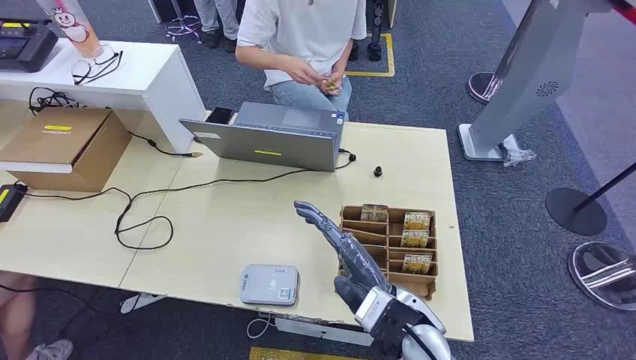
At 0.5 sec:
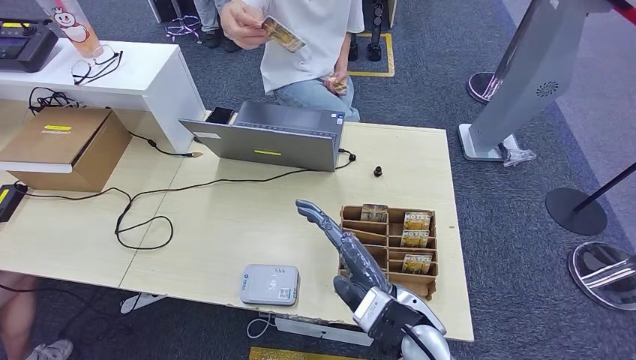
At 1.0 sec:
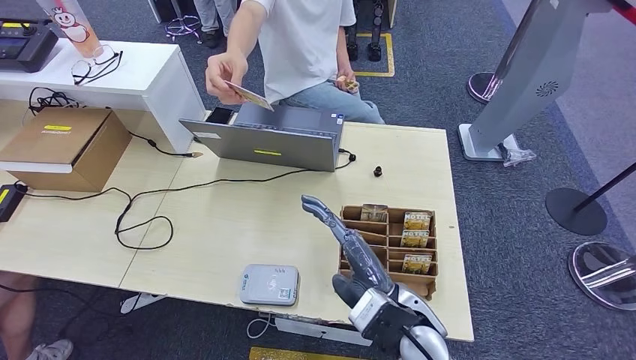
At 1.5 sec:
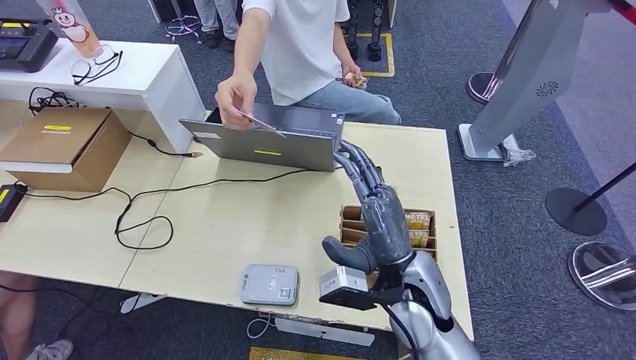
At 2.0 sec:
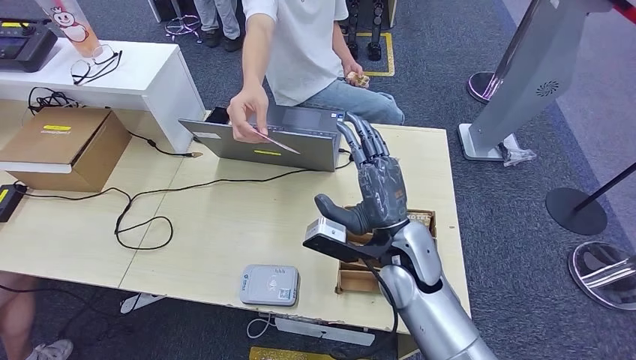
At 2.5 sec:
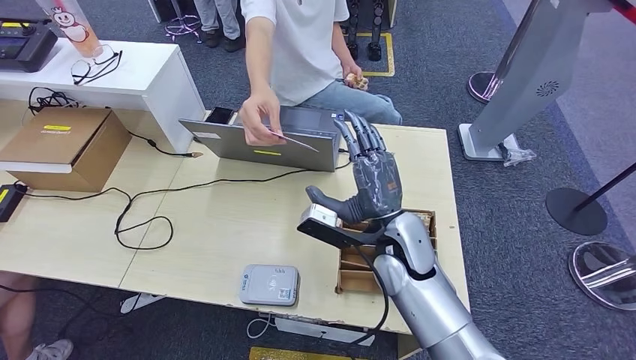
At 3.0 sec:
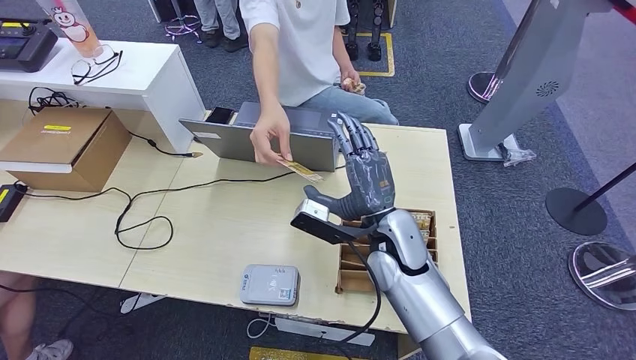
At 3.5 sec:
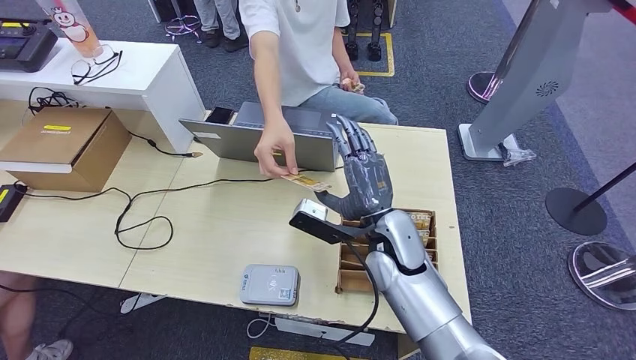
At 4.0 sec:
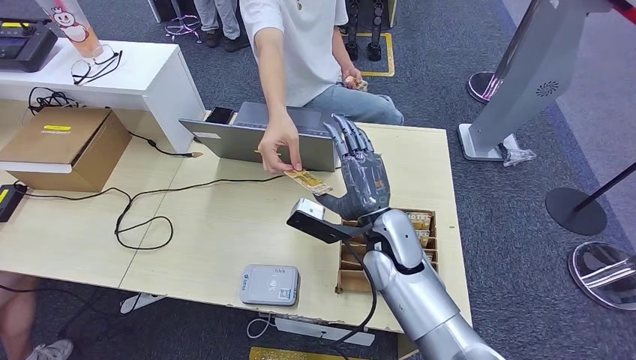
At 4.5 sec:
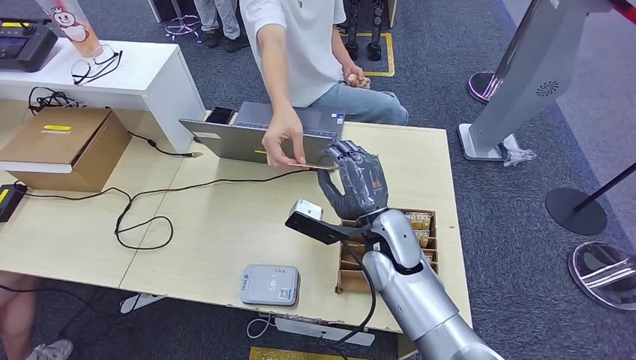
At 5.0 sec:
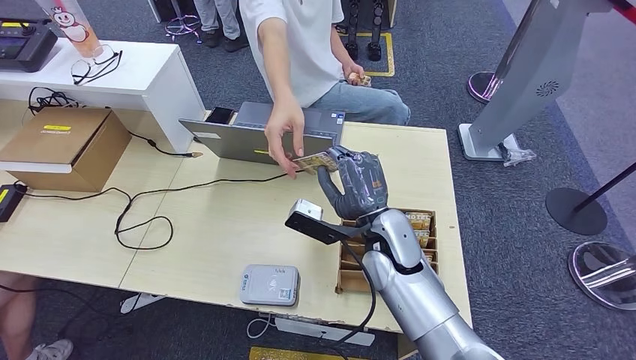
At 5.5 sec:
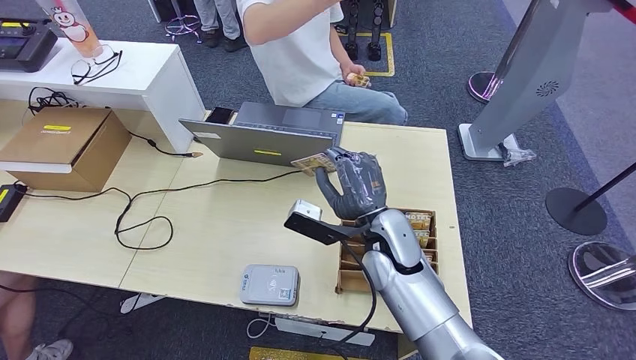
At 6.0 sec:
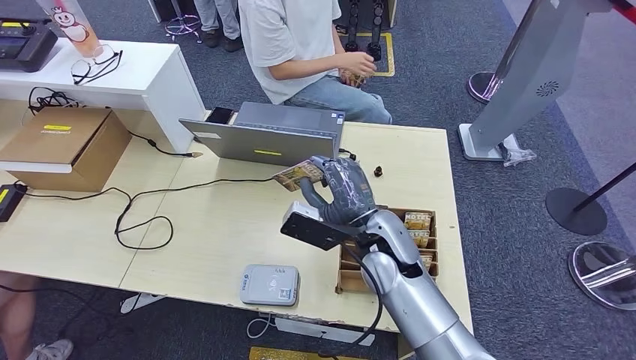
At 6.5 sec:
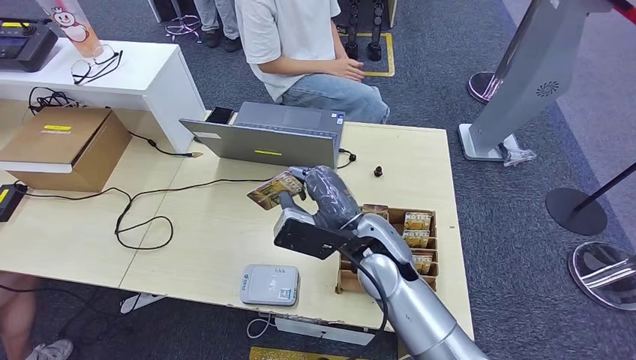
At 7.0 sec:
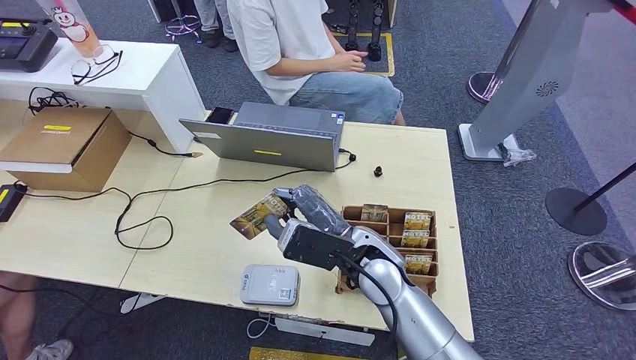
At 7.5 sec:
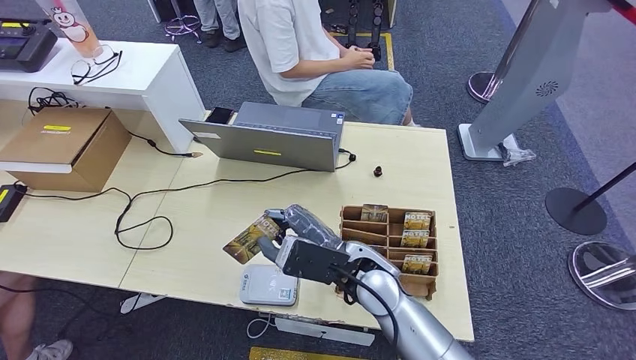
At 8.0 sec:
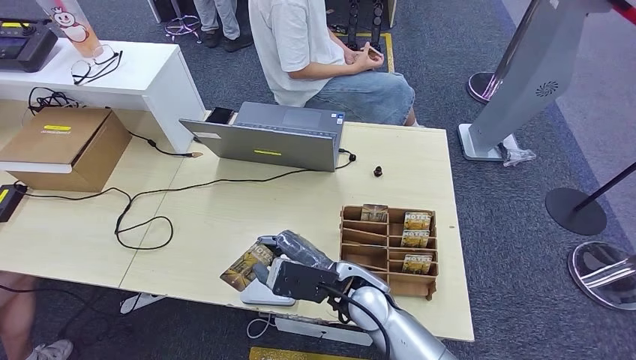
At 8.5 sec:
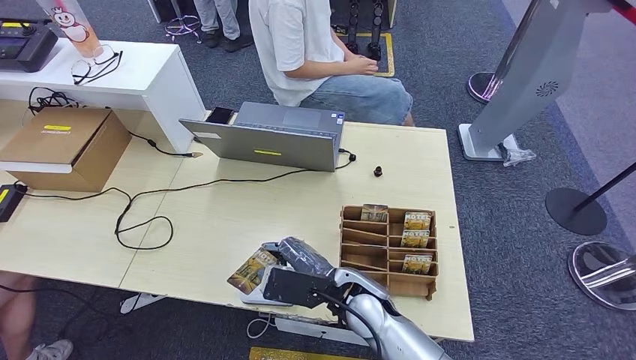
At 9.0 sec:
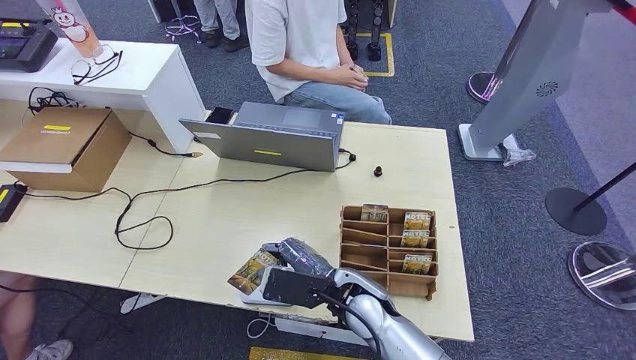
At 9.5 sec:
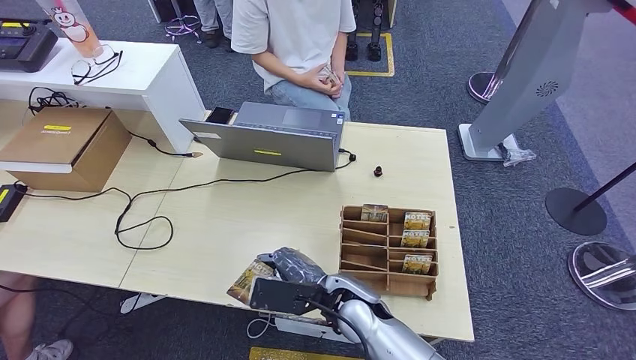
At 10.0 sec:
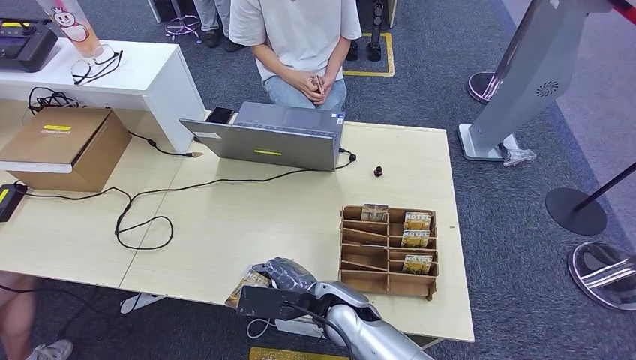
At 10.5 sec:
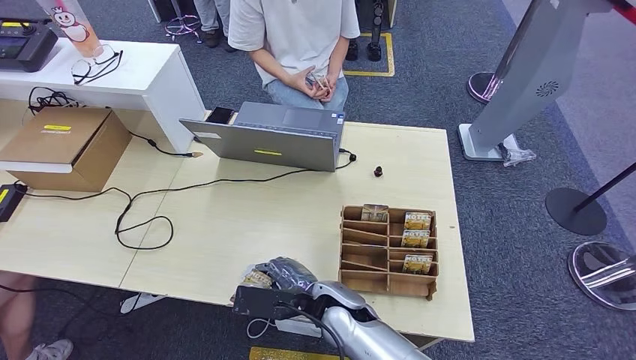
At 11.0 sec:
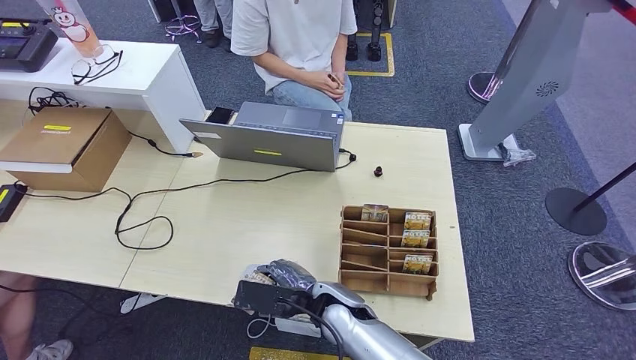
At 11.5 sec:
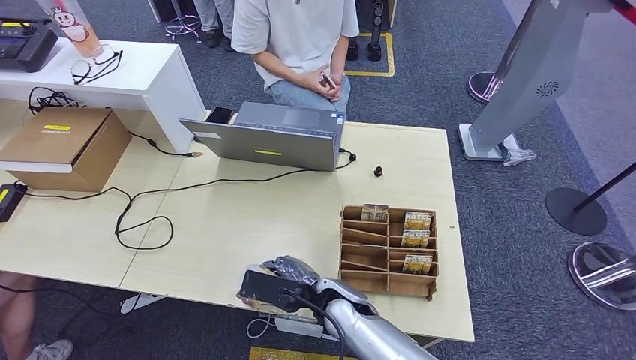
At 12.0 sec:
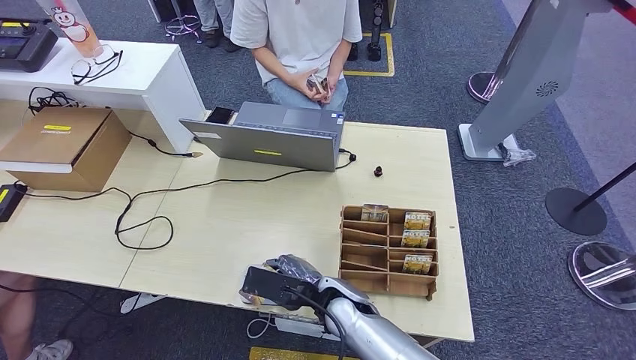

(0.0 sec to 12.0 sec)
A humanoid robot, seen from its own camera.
Step, 0.0 sec - 5.5 sec: Take the ID card from the person's hand.
2.0 sec - 6.0 sec: There are only small adjustments of the hands.
6.0 sec - 8.0 sec: The right hand is displaced backward and downward by some 5 cm.
8.0 sec - 10.0 sec: The right hand ends up approximately 5 cm from where it was.
10.0 sec - 12.0 sec: The hands move only a little.

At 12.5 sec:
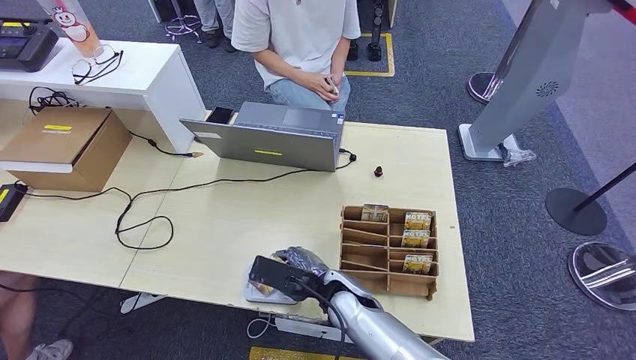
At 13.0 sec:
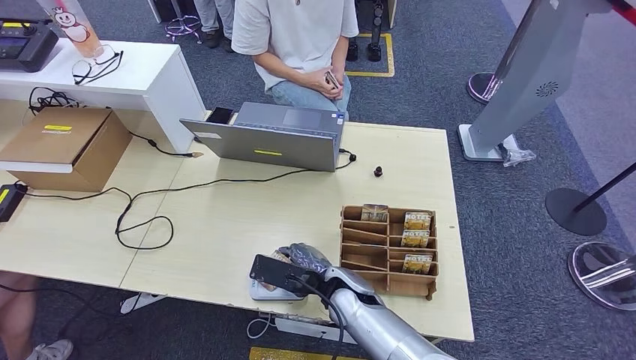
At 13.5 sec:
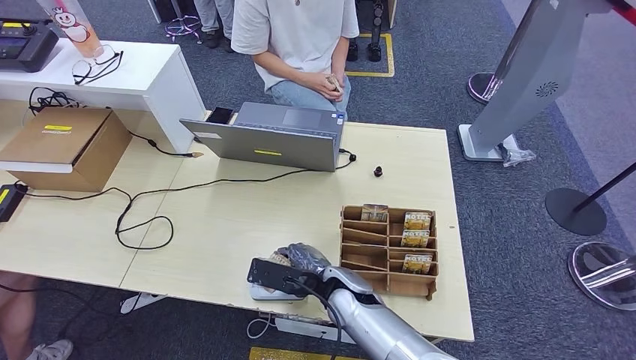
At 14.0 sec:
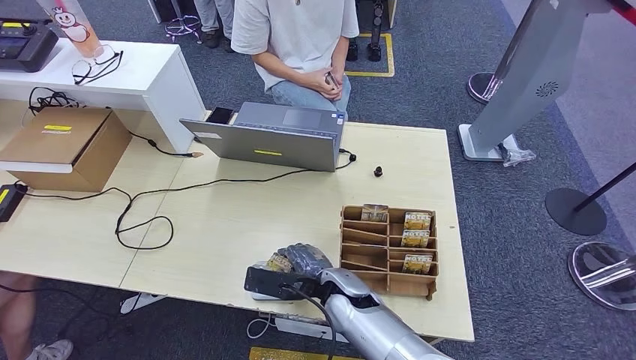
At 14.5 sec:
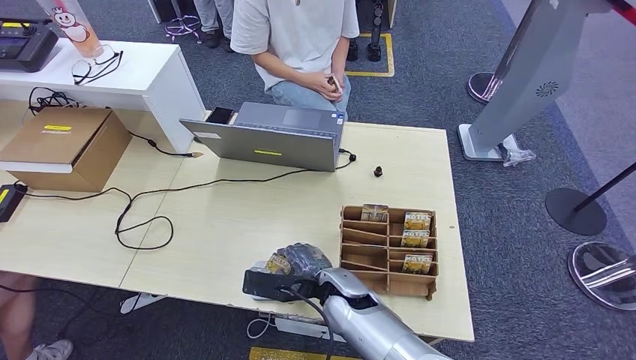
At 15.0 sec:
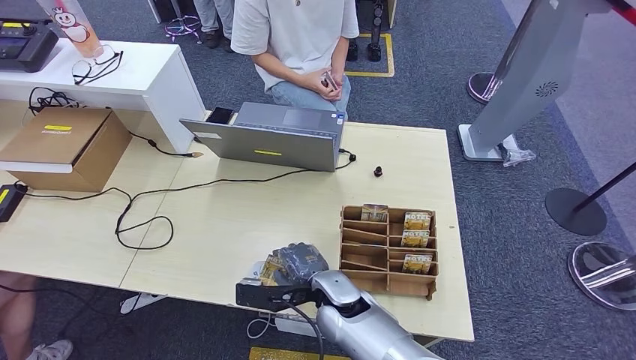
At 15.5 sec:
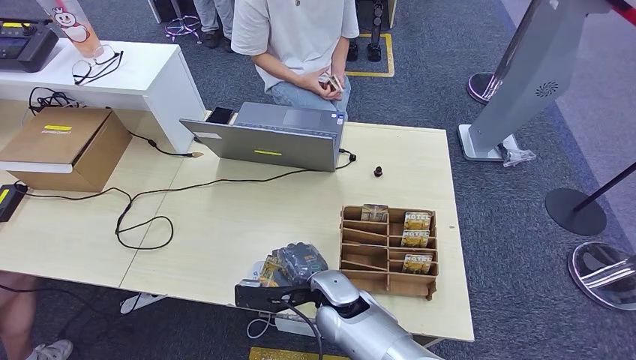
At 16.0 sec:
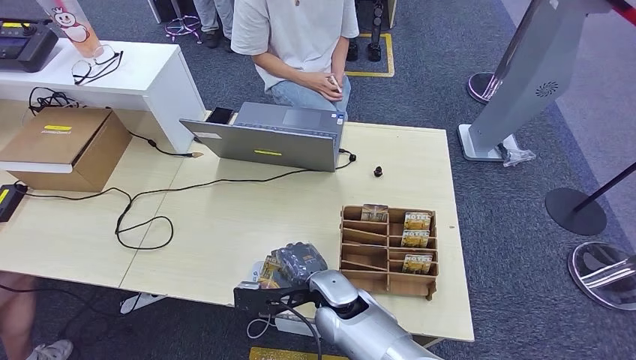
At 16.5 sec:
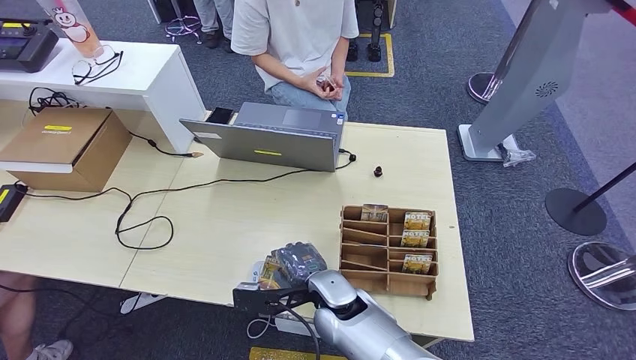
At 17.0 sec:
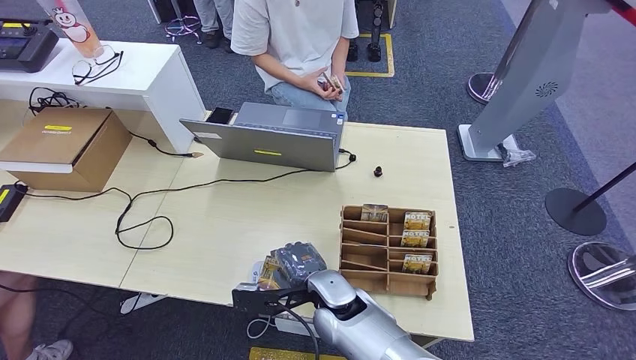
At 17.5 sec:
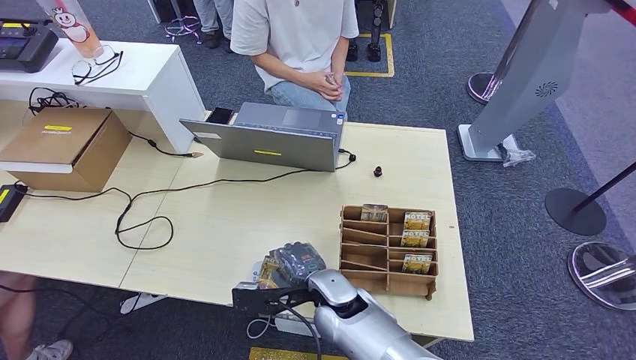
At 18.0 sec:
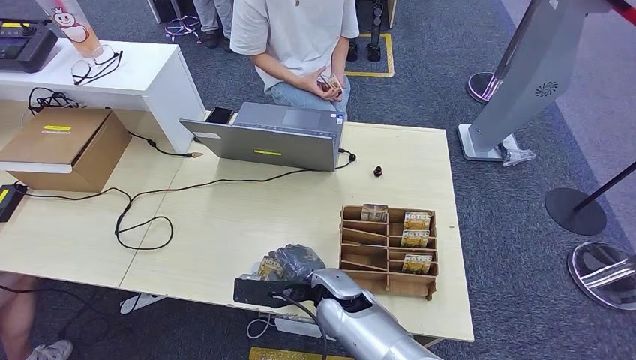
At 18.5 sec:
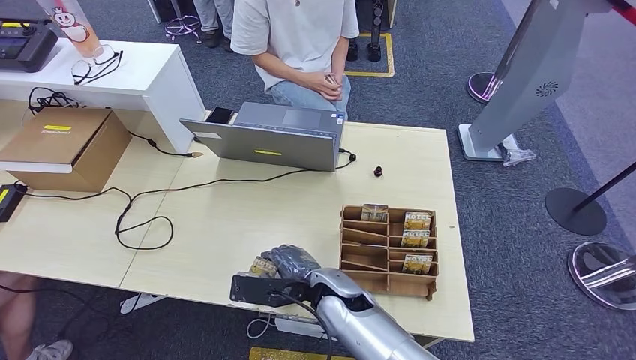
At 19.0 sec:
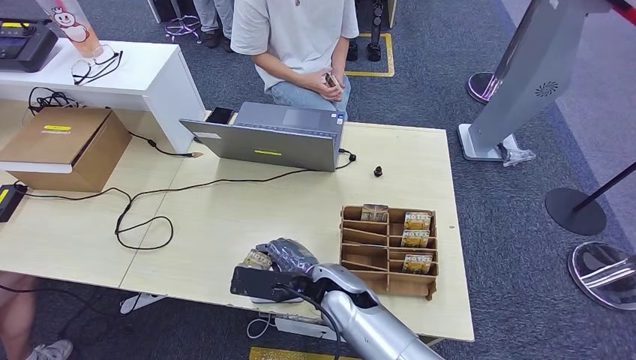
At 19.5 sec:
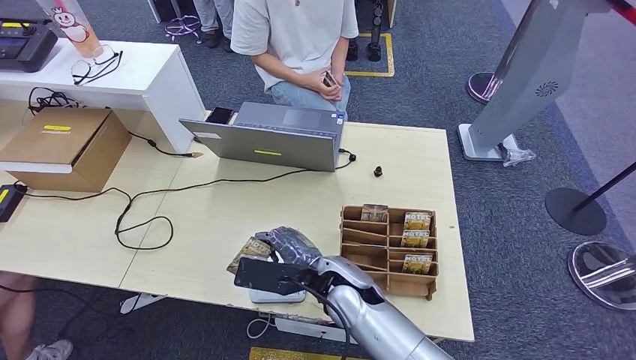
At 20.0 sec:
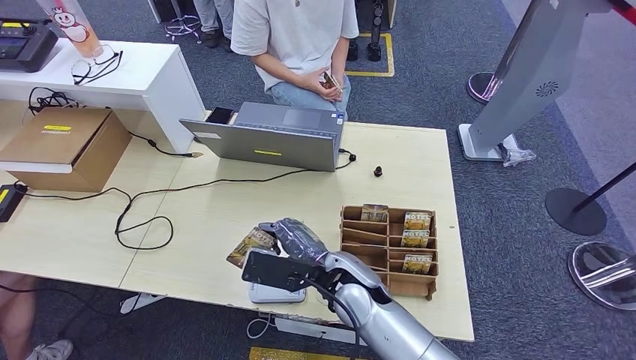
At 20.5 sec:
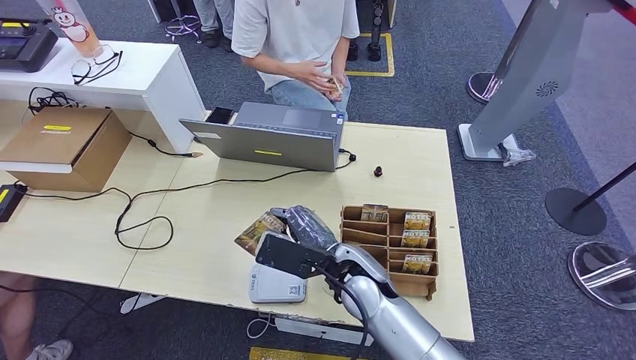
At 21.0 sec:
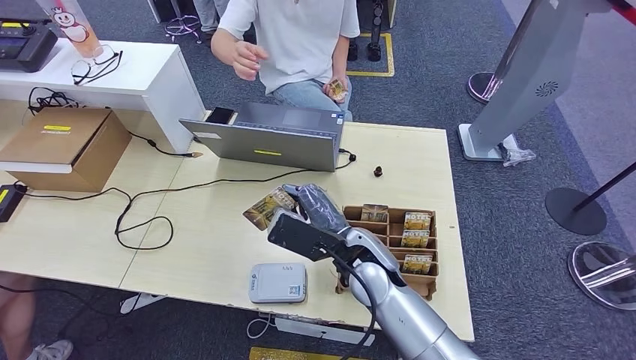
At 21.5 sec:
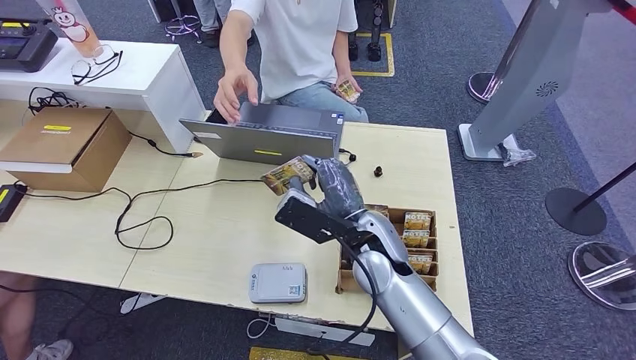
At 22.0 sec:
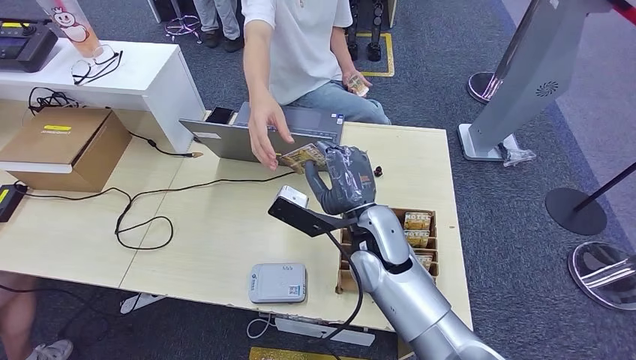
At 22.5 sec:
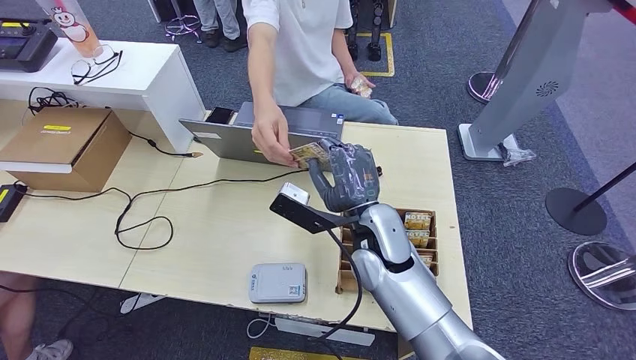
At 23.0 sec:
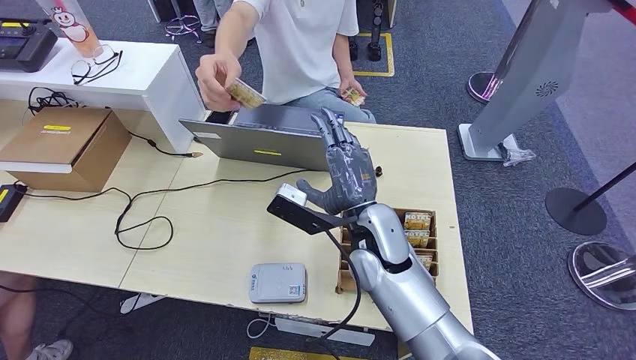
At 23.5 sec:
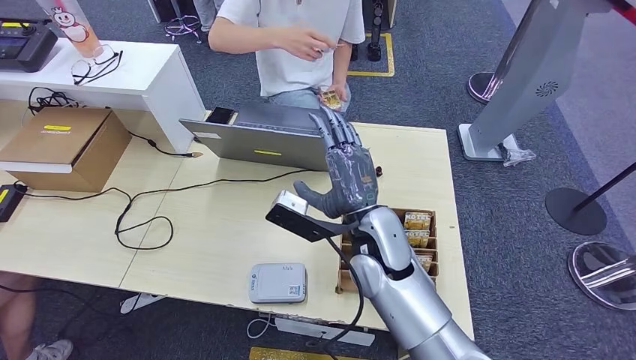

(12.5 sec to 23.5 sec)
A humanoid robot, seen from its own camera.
12.5 sec - 14.5 sec: The hands stay close to where they were, moving slightly.
14.5 sec - 18.0 sec: There are only small adjustments of the hands.
18.0 sec - 20.0 sec: The right hand moves upward, some 5 cm.
20.0 sec - 21.5 sec: The right hand shifts roughly 5 cm upward.
